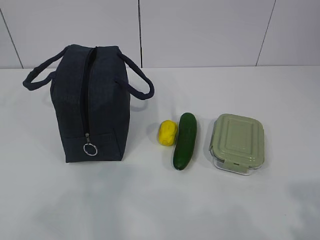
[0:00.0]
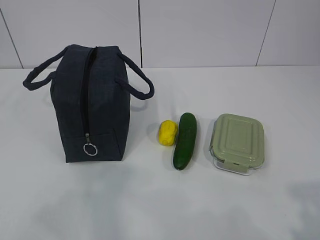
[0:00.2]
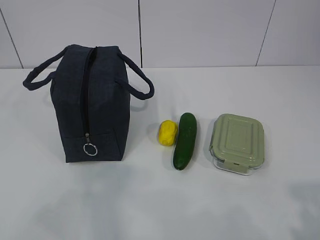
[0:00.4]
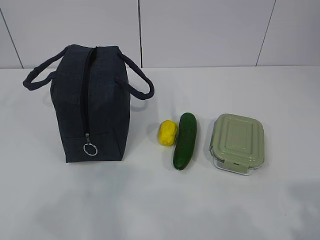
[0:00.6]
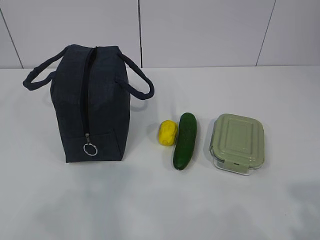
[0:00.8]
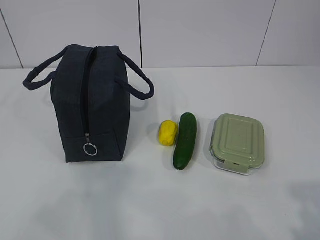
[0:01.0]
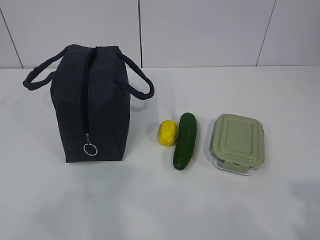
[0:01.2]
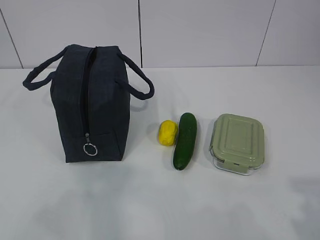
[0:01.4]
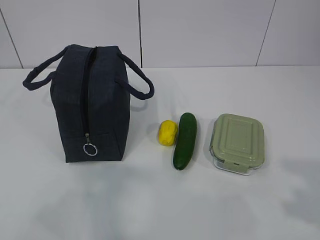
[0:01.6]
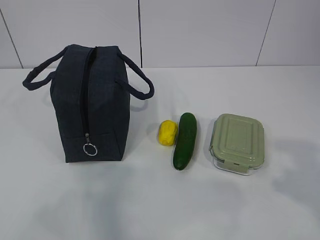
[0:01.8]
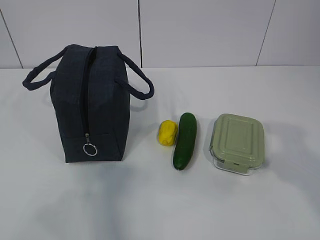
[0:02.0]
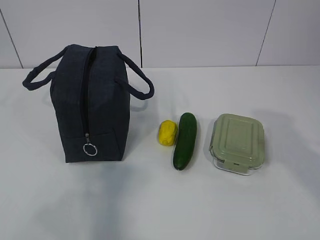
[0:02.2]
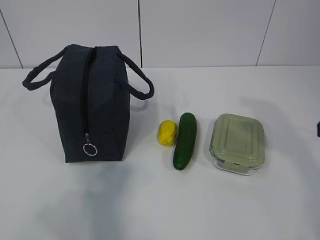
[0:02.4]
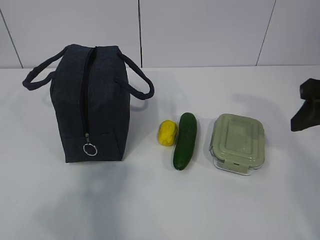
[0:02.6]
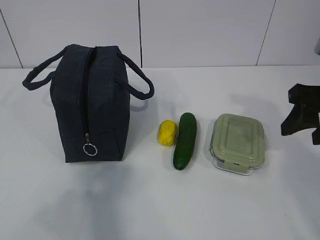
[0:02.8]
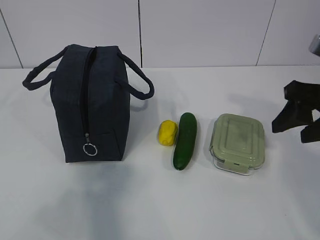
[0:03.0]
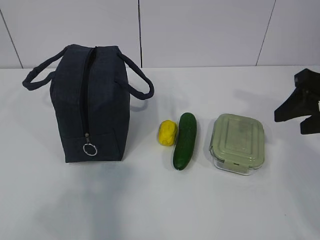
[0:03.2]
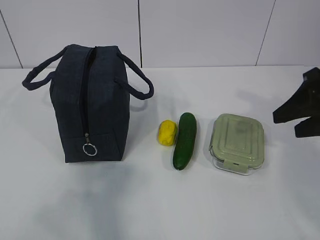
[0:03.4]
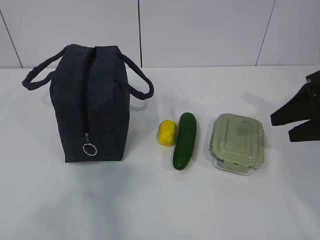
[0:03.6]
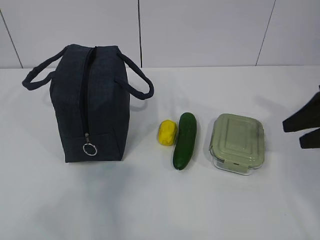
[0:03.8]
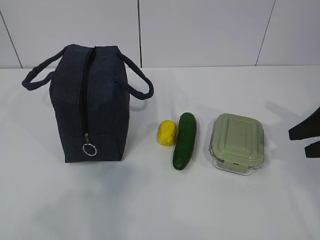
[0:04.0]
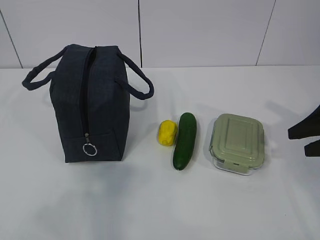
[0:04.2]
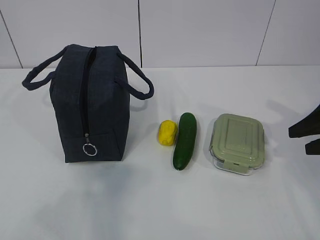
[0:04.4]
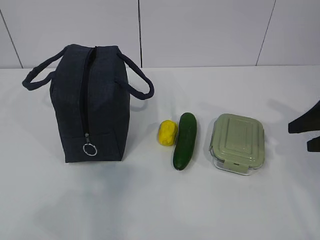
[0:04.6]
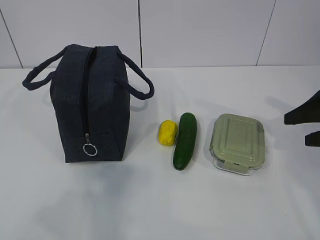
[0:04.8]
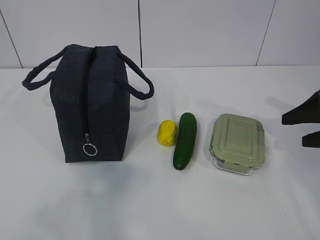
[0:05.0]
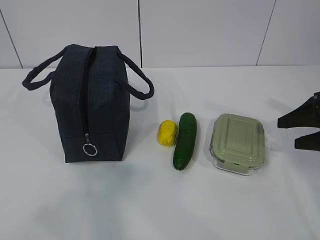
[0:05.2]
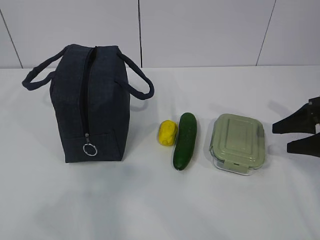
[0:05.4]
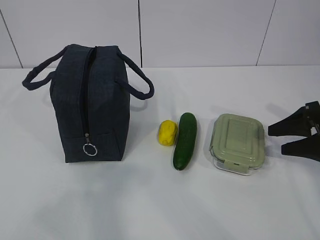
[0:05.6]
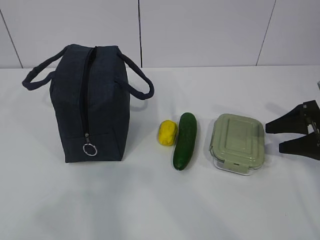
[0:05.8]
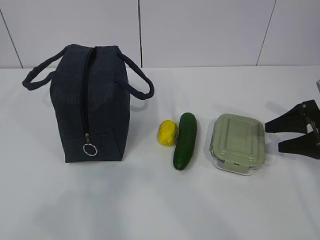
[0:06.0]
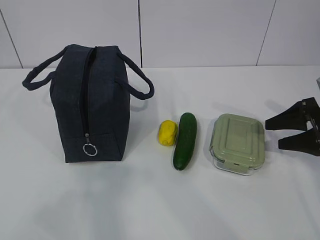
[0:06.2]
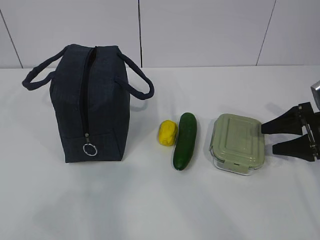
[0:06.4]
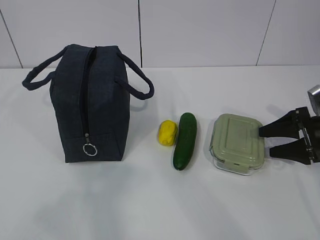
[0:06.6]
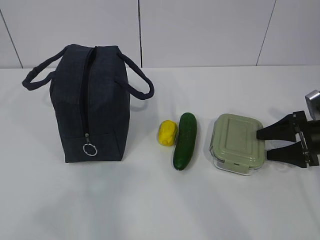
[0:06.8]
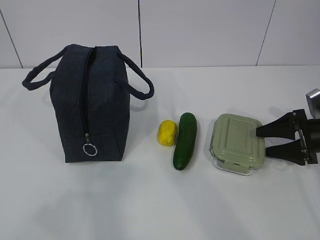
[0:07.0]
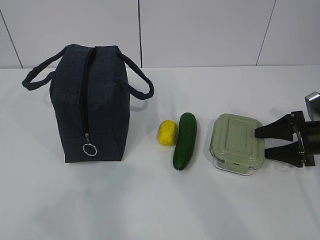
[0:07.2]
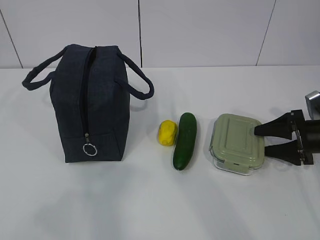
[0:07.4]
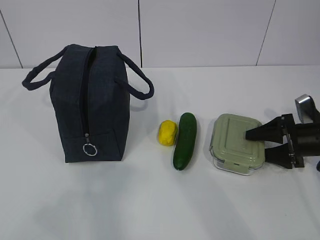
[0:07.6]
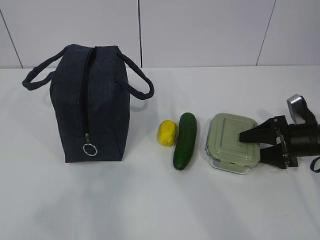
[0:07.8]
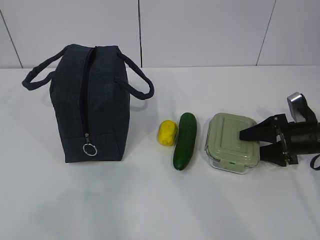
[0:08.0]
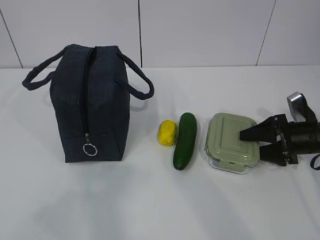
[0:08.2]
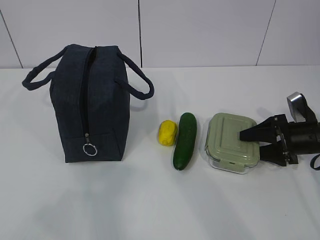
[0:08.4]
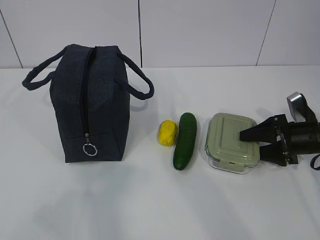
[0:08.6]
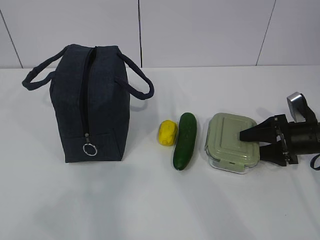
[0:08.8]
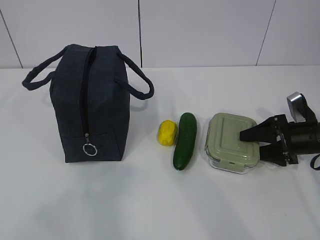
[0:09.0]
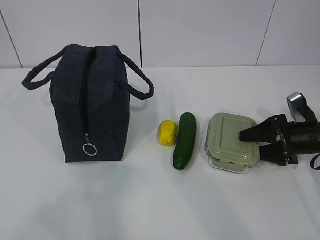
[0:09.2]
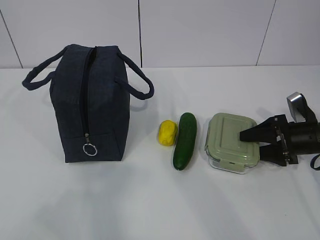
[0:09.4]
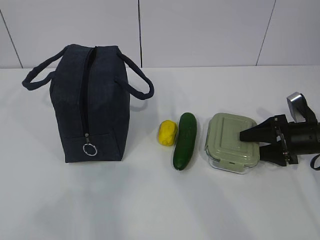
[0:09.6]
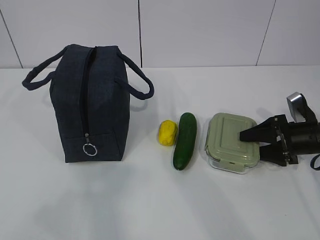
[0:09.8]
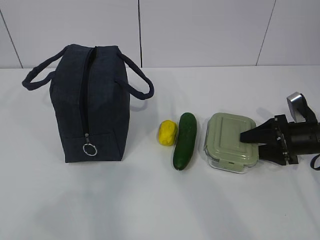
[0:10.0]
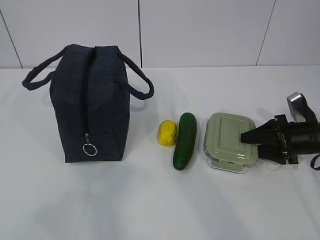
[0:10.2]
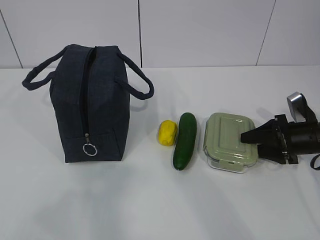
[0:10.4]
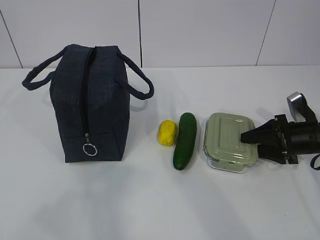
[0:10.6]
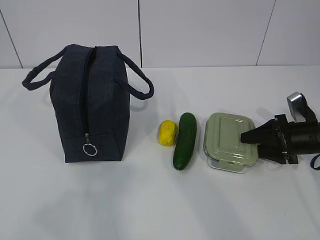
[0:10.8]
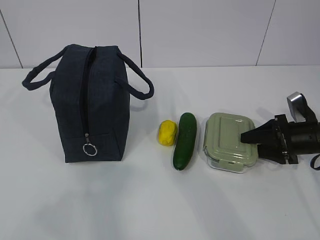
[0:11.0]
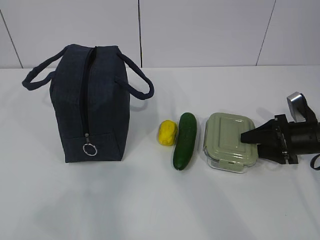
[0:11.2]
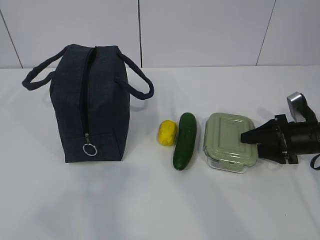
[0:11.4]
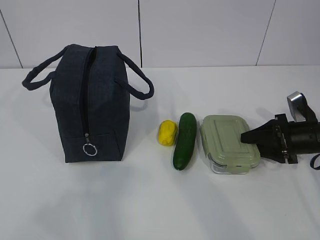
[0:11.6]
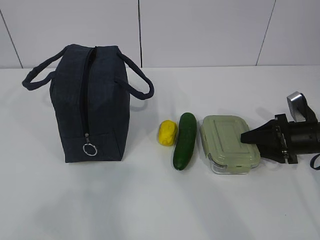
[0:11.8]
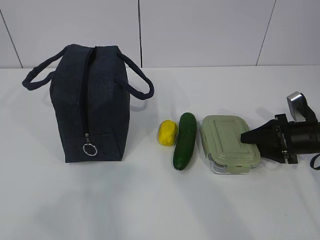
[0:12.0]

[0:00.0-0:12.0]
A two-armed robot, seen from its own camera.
0:01.6 to 0:03.0: The right gripper moves forward, some 25 cm.
0:03.0 to 0:04.4: The right gripper travels to the right and downward by some 10 cm.
0:04.4 to 0:06.0: The right gripper heads downward, covering about 5 cm.
0:06.0 to 0:07.6: The right gripper moves downward, approximately 5 cm.
0:07.6 to 0:12.0: Both grippers stay about where they are.

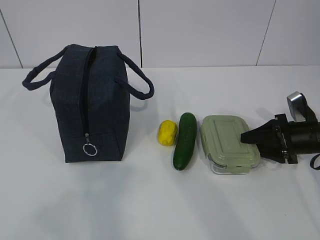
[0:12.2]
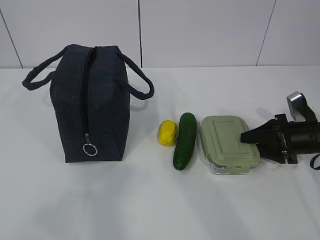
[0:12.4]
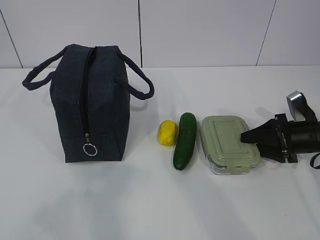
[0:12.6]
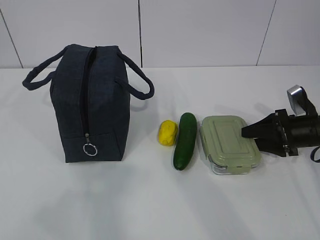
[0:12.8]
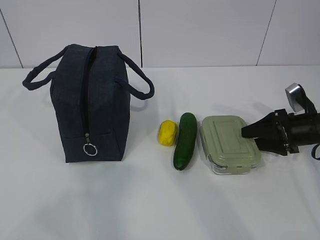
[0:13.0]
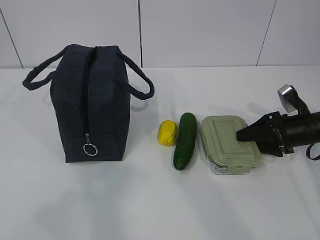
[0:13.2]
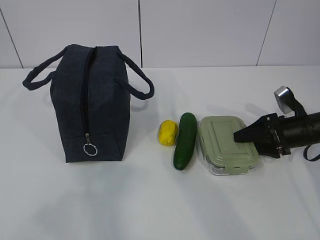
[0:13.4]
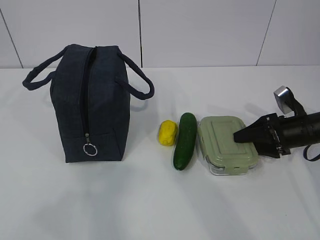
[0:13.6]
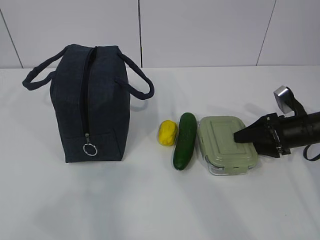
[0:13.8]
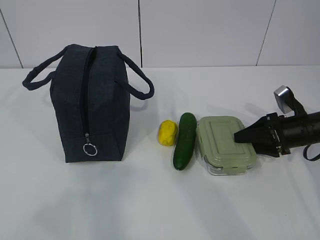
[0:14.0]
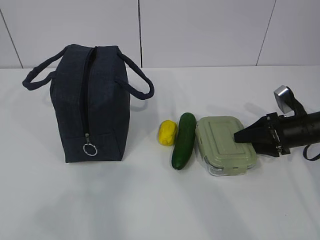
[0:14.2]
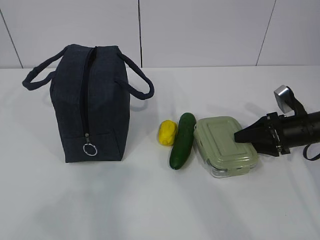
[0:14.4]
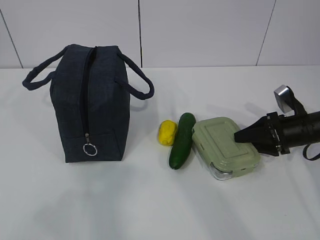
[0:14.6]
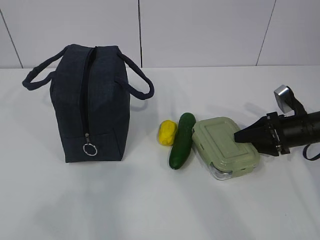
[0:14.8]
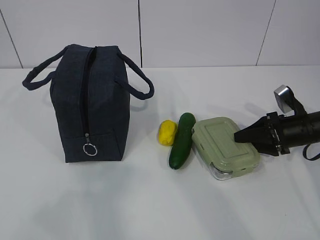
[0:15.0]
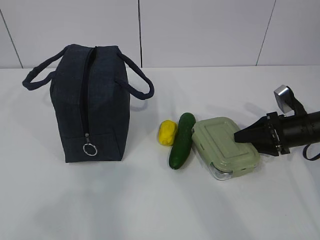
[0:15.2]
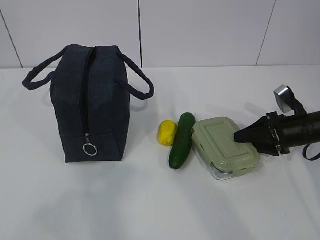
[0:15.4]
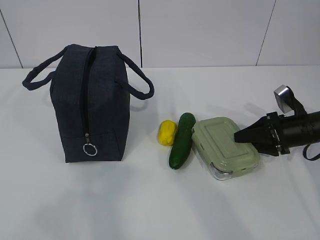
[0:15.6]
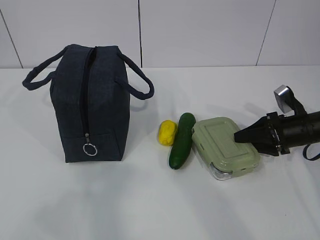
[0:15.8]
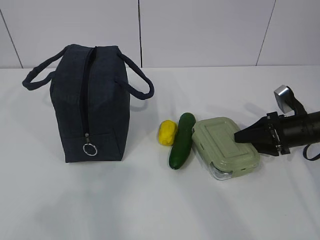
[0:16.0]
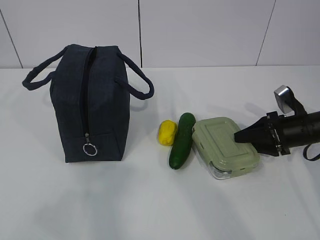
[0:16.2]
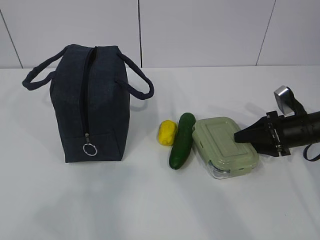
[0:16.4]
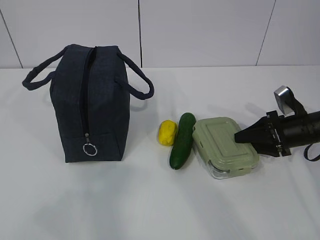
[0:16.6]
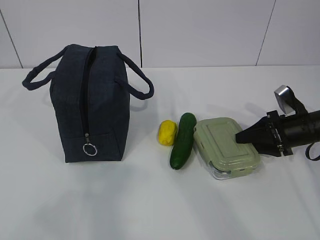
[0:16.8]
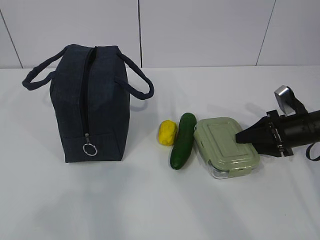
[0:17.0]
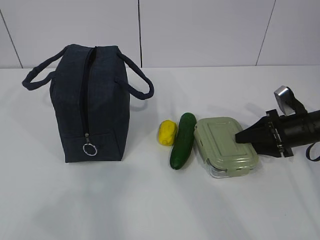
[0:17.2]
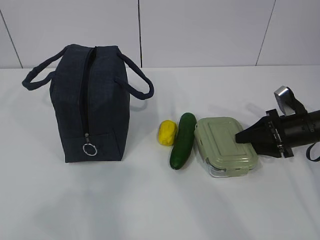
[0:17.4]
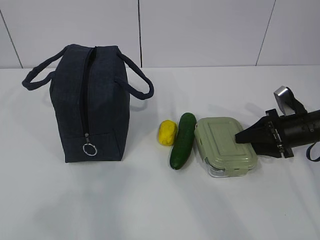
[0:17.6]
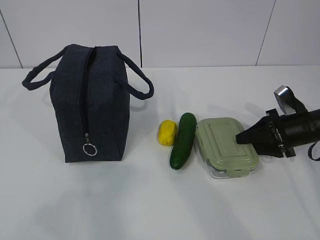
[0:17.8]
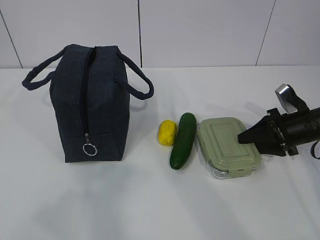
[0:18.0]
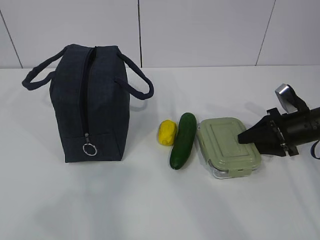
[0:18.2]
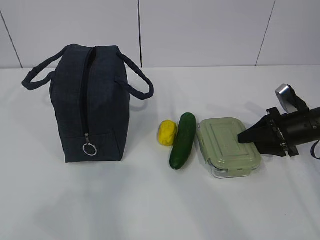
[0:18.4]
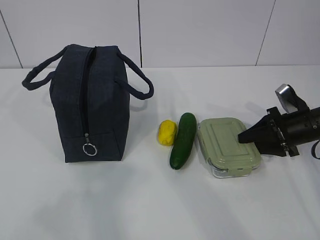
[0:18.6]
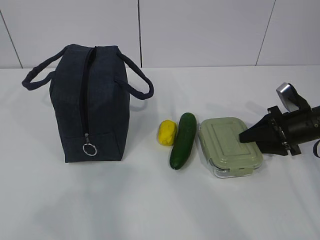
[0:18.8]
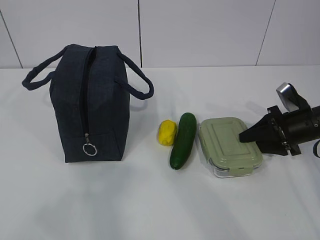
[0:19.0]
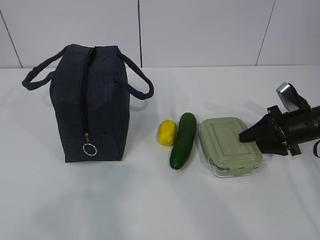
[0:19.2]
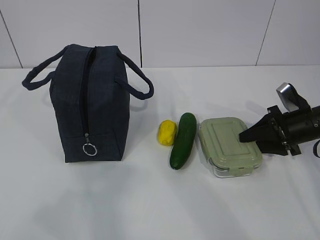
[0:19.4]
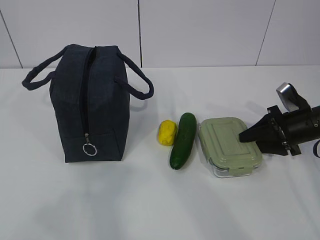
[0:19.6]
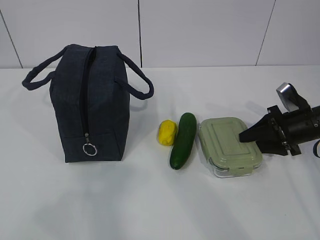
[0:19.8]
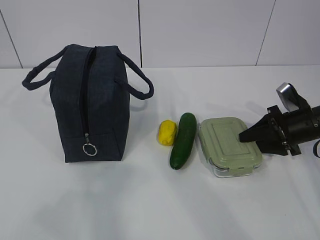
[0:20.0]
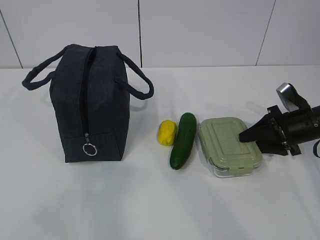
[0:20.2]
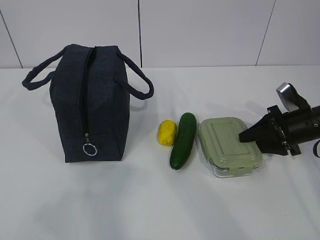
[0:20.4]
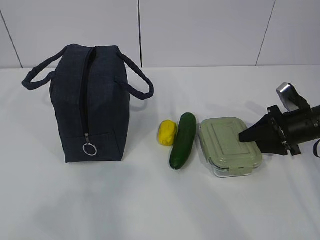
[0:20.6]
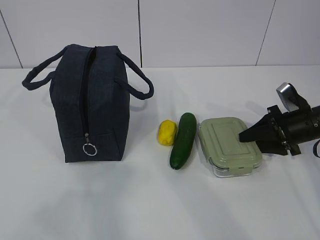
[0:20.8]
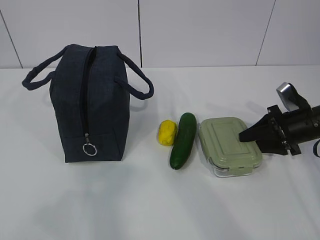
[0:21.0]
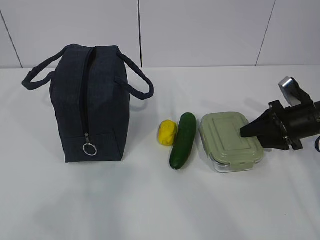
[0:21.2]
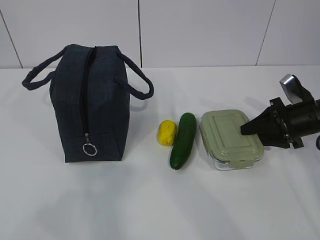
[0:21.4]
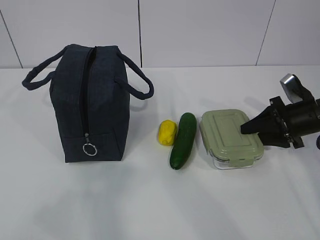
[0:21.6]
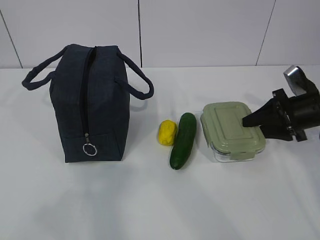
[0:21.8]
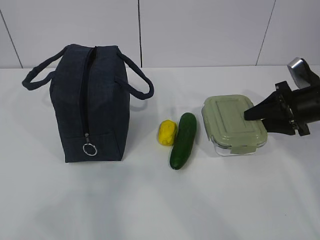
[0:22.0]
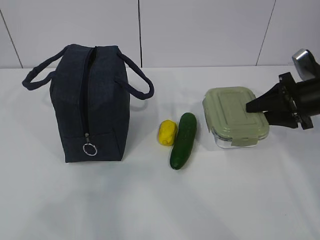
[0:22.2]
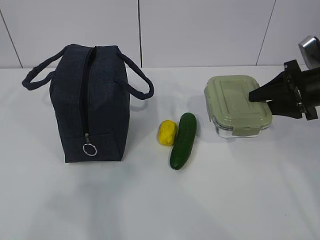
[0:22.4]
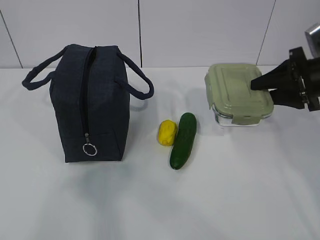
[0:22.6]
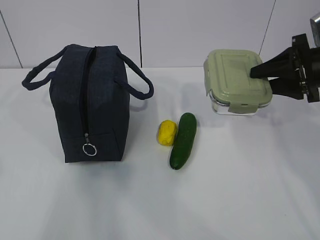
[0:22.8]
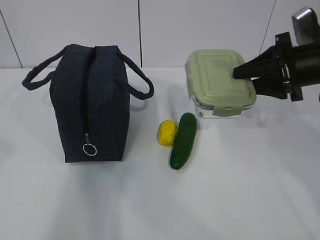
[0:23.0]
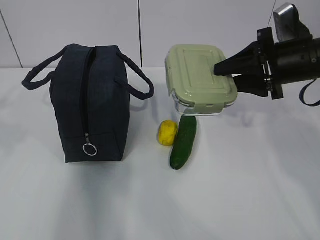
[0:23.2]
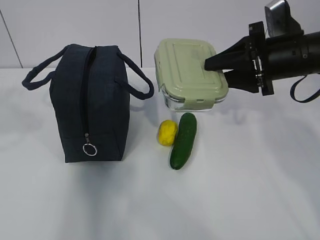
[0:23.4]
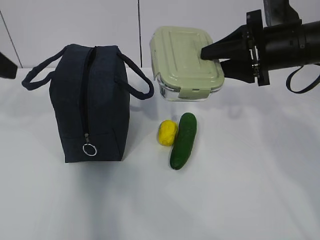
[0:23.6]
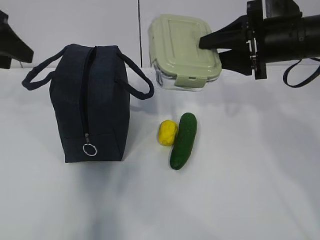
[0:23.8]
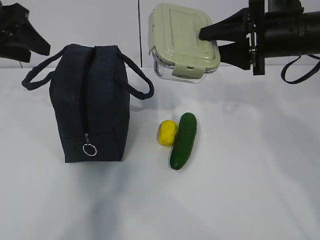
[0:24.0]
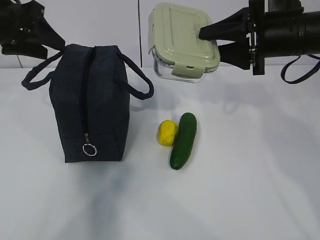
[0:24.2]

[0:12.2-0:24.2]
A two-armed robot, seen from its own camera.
Step, 0:12.2 to 0:14.6: Grab the lunch box with your right hand.
0:12.2 to 0:13.8: The grippers move only a little.
0:13.8 to 0:16.6: The two grippers keep their place.
0:16.6 to 0:18.2: The grippers stay close to where they were, moving slightly.
0:18.2 to 0:19.8: Neither gripper changes place.
0:19.8 to 0:21.2: Both grippers stay put.
0:21.2 to 0:22.6: The right gripper travels upward by some 10 cm. Meanwhile the left gripper moves roughly 5 cm.
0:22.6 to 0:24.2: The left gripper moves forward, approximately 35 cm; the right gripper travels to the left and upward by roughly 10 cm.
